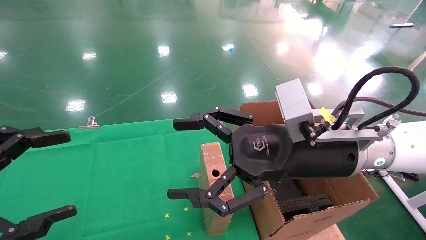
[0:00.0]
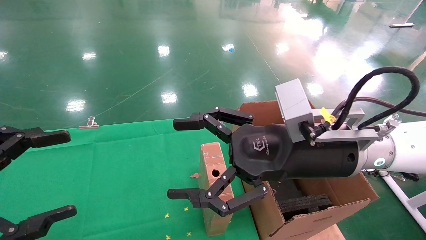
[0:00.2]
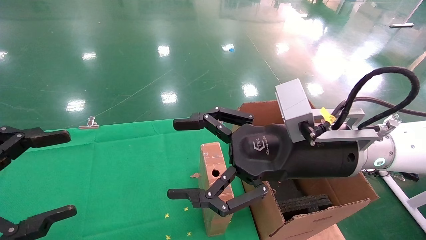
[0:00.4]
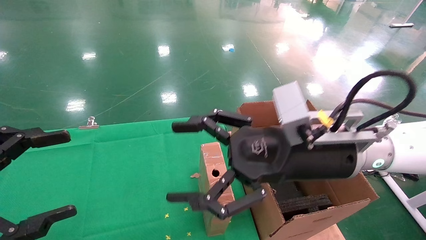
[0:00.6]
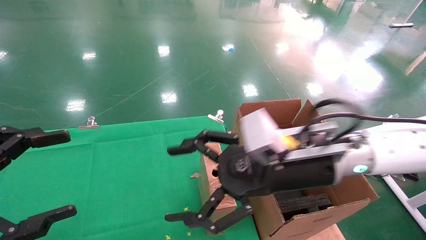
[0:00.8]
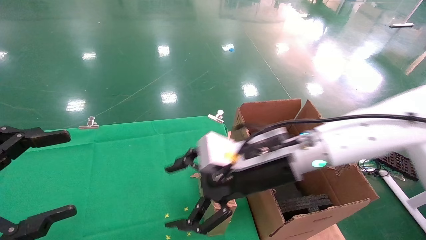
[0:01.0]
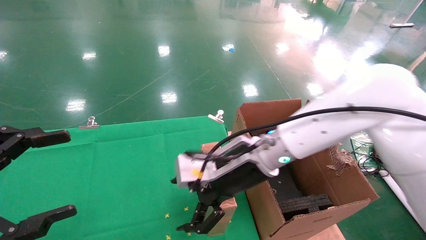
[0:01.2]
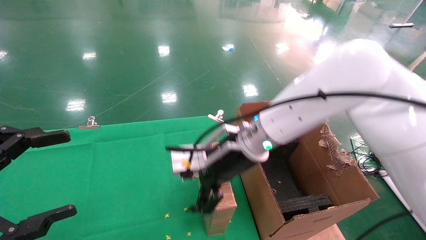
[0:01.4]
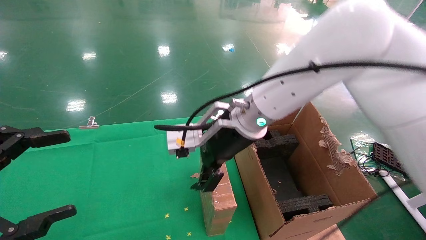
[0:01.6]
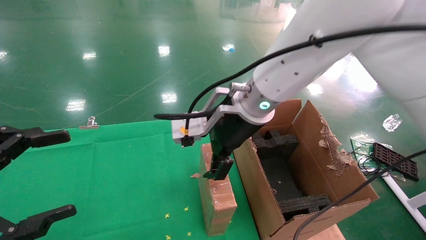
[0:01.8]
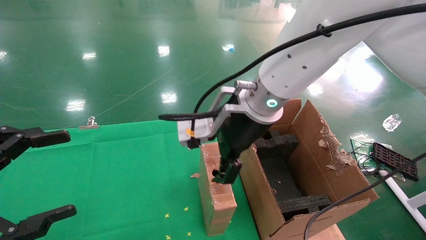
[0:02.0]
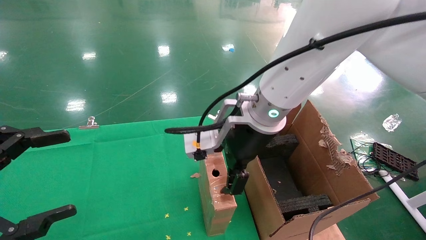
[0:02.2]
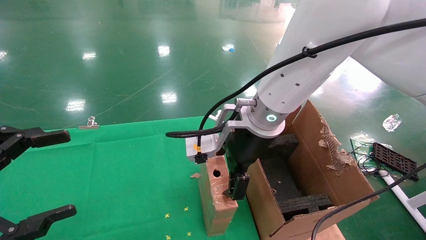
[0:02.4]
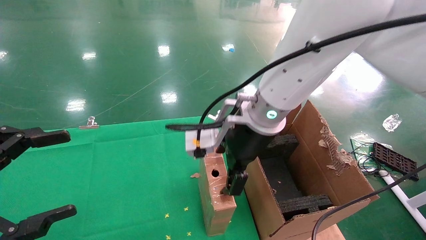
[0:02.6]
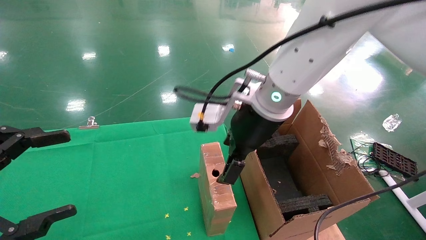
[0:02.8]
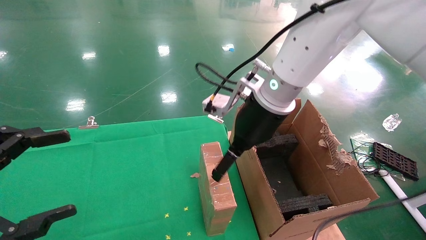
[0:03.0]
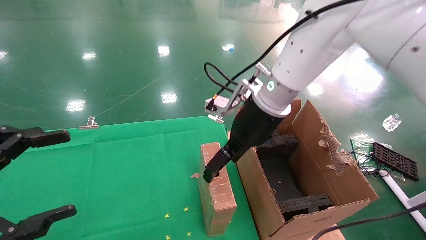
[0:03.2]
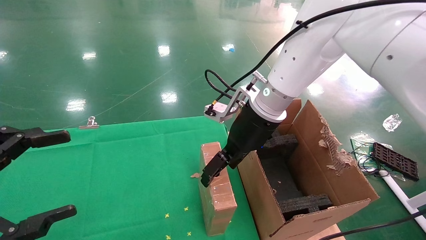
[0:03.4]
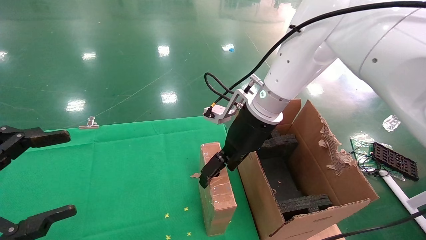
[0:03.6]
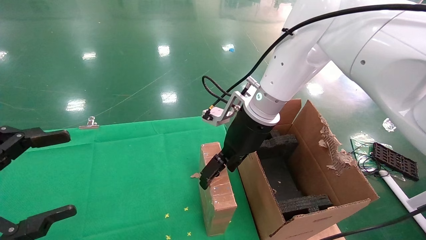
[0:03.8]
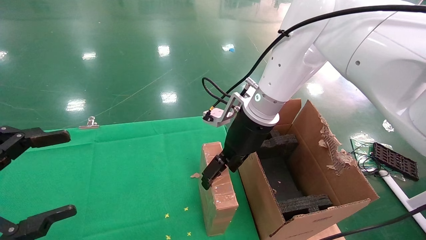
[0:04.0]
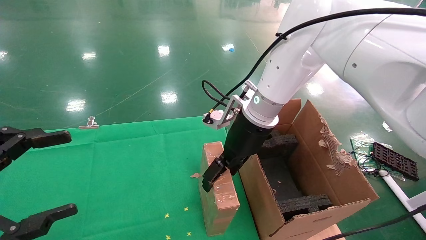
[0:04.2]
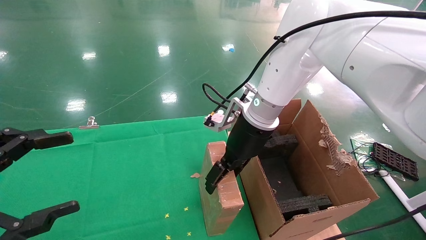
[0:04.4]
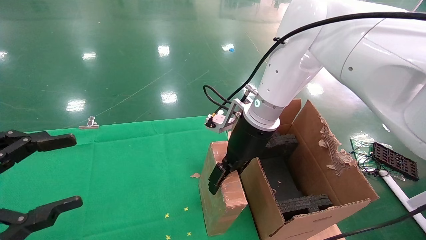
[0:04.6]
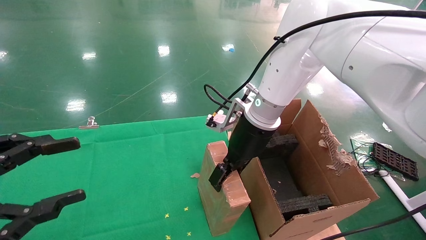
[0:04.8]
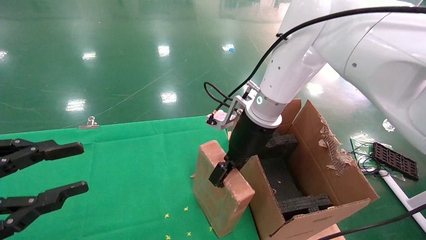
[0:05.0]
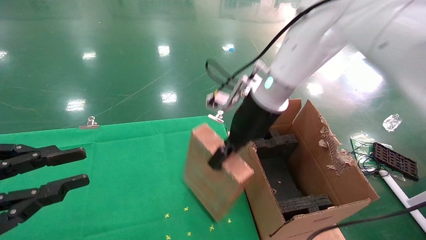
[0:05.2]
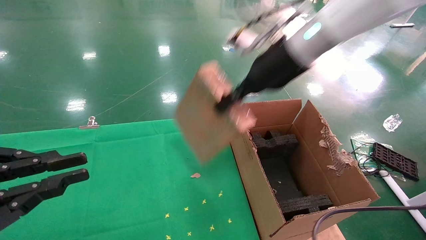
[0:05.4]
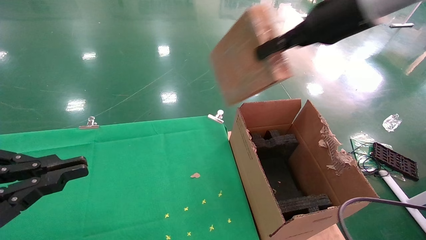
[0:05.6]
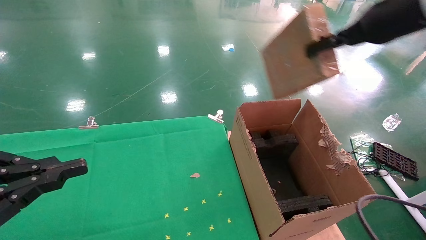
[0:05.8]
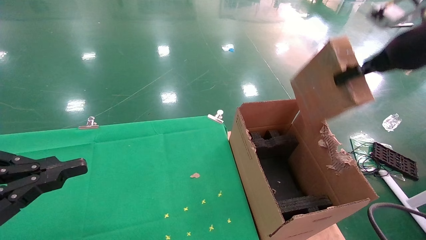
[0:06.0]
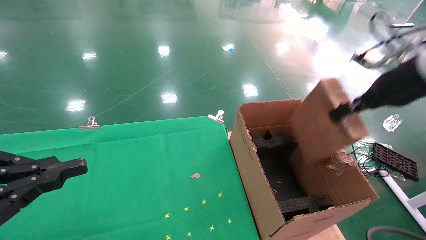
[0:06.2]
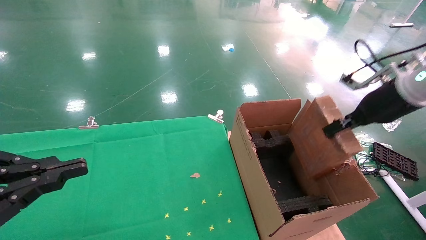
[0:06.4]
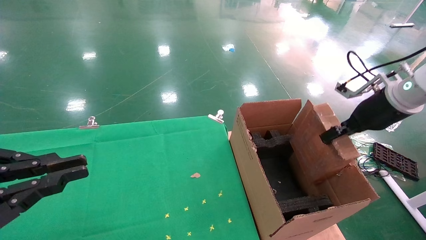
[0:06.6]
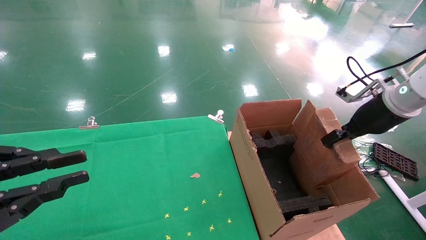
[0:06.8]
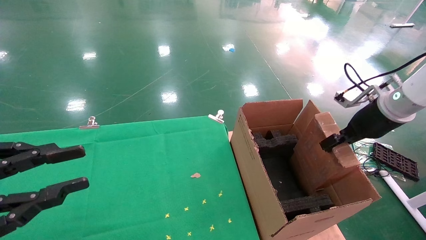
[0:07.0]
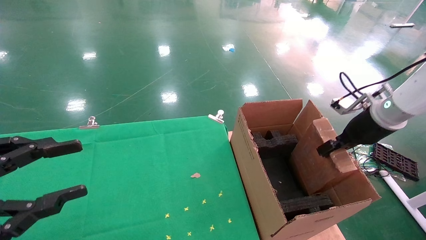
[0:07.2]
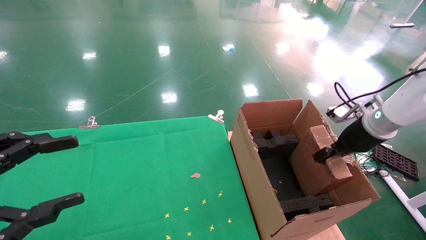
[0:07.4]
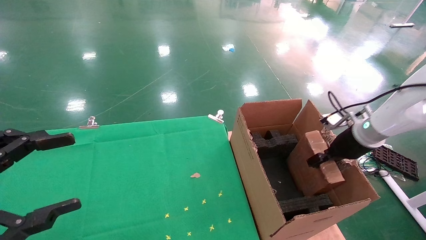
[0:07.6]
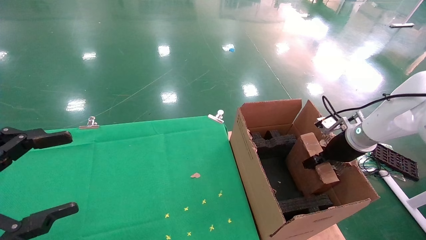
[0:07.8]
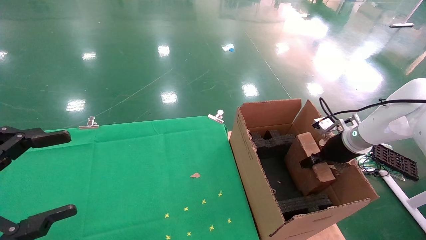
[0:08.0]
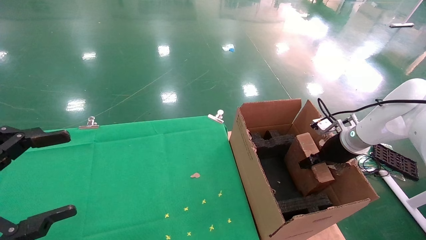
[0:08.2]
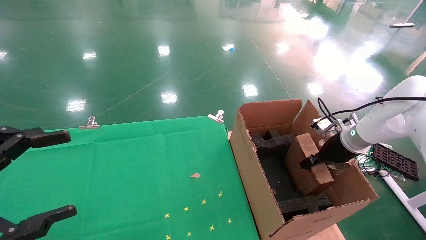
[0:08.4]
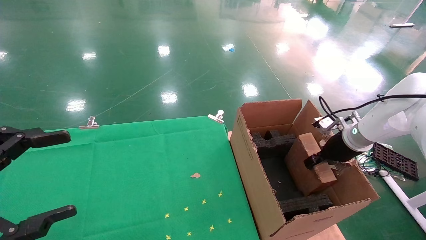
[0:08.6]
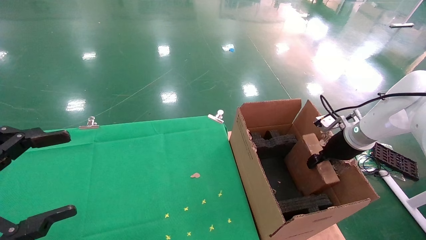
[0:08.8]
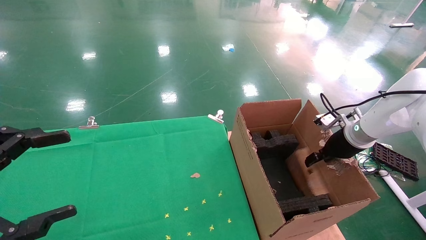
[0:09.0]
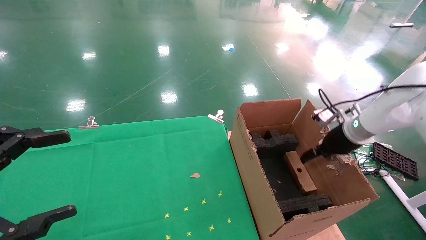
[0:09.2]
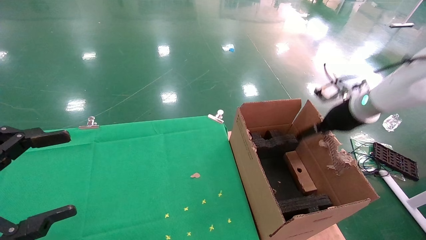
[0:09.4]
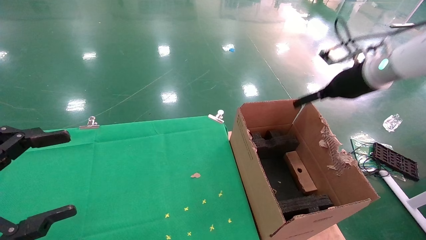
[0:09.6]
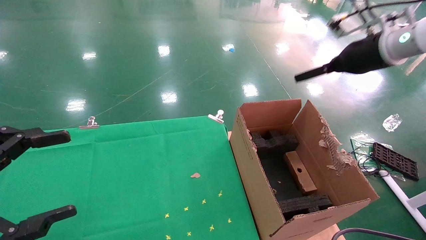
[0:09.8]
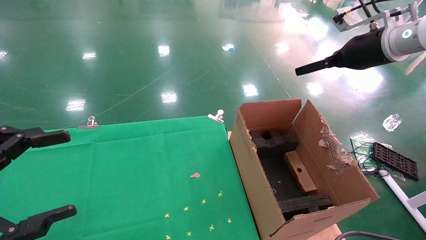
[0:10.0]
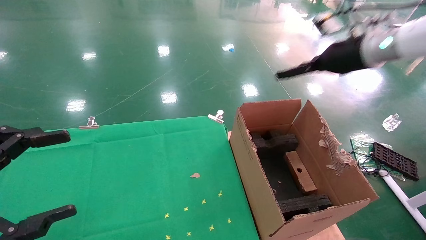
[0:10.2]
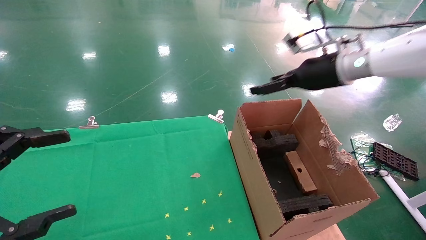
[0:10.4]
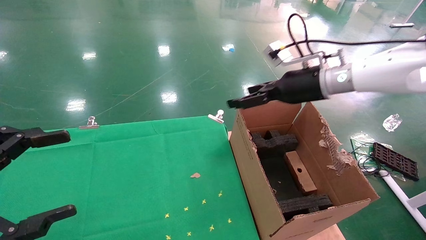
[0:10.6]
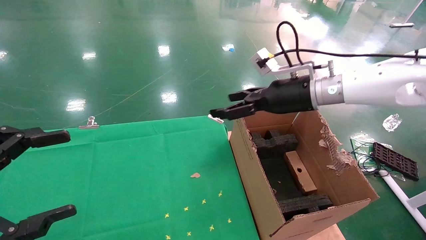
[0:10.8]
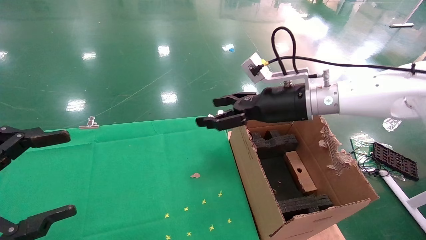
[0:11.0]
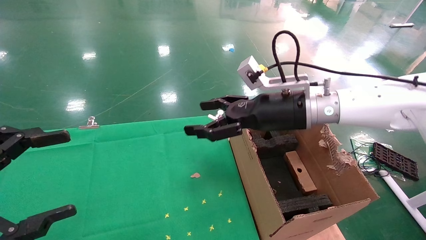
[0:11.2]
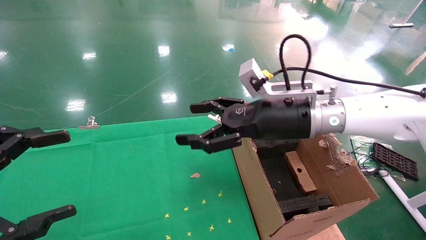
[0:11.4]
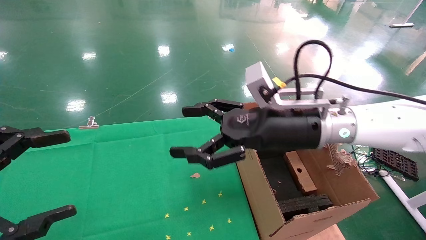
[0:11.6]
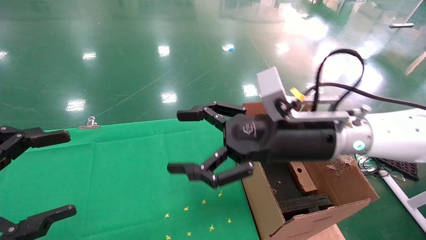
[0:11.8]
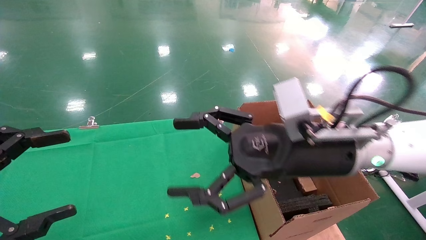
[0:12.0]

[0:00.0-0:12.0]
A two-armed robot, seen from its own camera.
Task of the whole recording: using a robotic arm to pick up a cardboard box and palace it the carton.
Step, 0:00.8 to 0:05.0: Pick up the mouse and the power cord paper box.
Step, 0:05.2 to 0:09.0: Place the mouse and the power cord paper box into the container.
0:00.0 to 0:01.6: The right gripper travels forward and to the left by approximately 15 cm.
0:01.6 to 0:03.0: The right gripper shifts by roughly 5 cm.
0:03.0 to 0:04.4: The right gripper moves roughly 5 cm.
0:04.4 to 0:06.0: The left gripper closes. The right gripper travels to the right and upward by some 30 cm, and closes its fingers.
0:06.0 to 0:07.6: The left gripper opens. Meanwhile the right gripper goes about 20 cm downward.
0:07.6 to 0:09.0: The right gripper opens.
0:09.0 to 0:10.4: The right gripper is displaced upward and to the left by about 20 cm, and opens.
0:10.4 to 0:12.0: The right gripper is displaced backward, to the left and downward by roughly 20 cm.

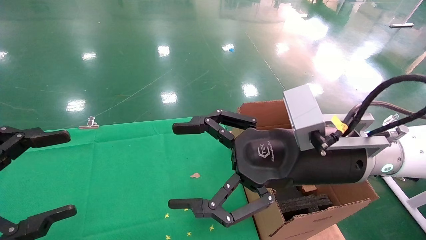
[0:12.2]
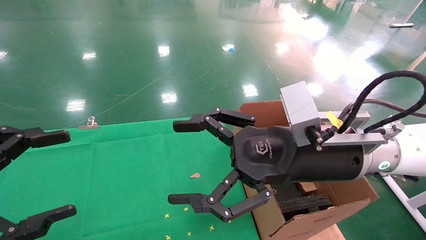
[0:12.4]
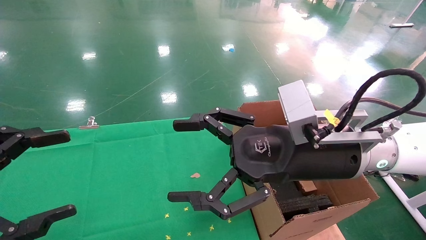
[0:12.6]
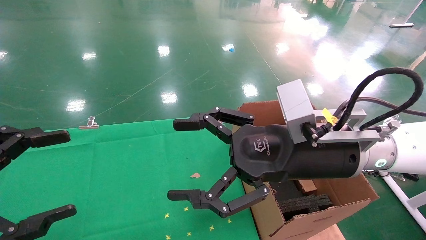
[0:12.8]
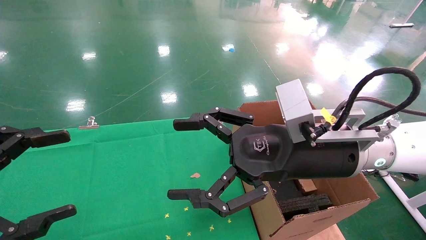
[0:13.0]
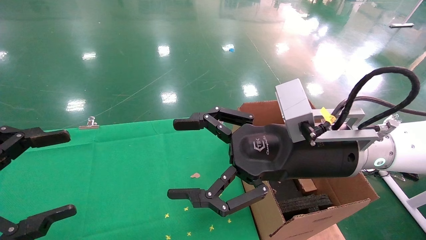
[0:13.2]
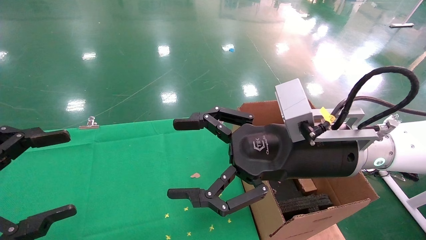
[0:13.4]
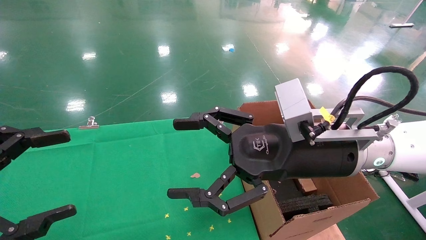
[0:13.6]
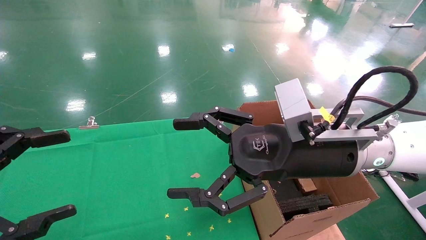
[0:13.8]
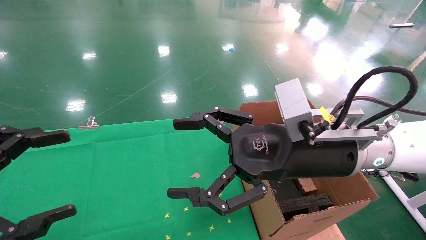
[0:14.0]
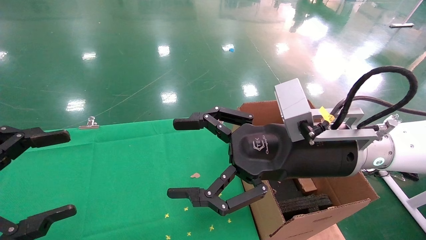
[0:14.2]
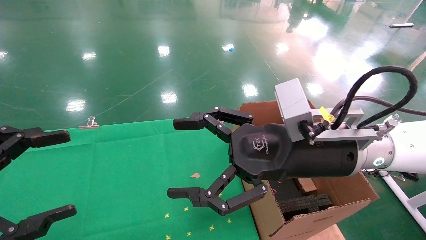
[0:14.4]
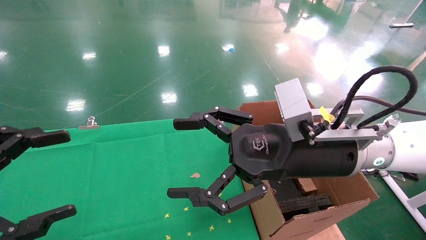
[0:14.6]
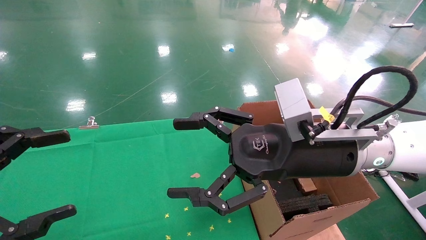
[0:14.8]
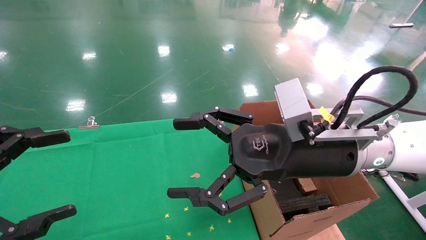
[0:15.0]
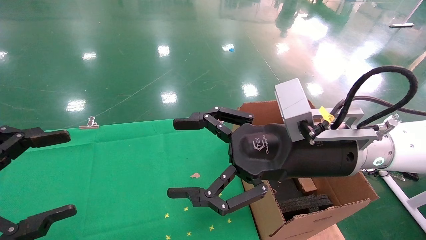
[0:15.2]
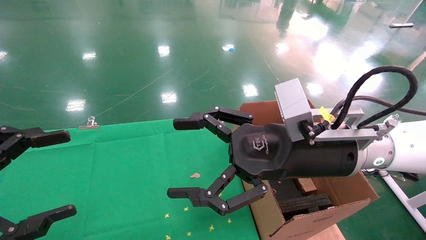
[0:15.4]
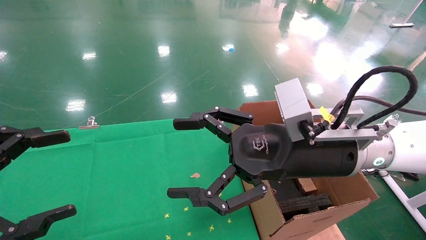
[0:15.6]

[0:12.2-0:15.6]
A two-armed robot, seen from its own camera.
Task of the whole recording: using a robotic arm to pick up a cardboard box and palace it the carton.
0:12.2 to 0:15.6: Both grippers stay put.
